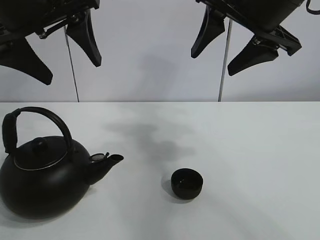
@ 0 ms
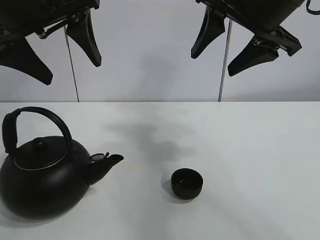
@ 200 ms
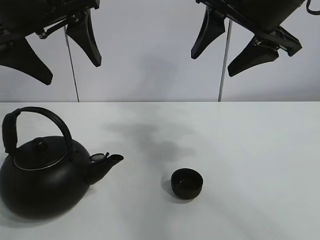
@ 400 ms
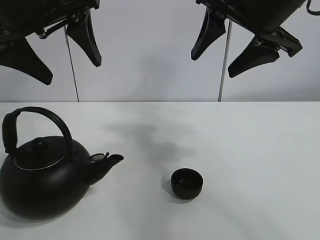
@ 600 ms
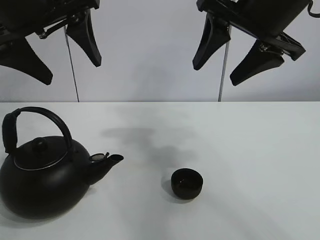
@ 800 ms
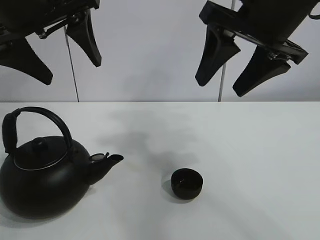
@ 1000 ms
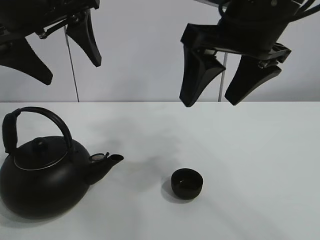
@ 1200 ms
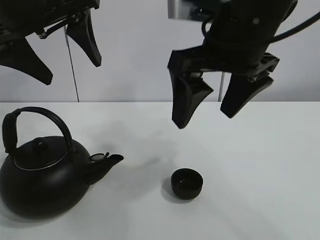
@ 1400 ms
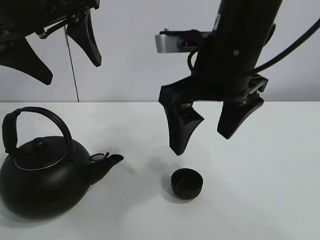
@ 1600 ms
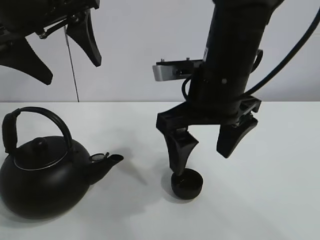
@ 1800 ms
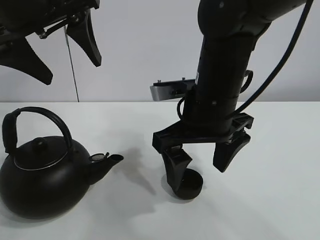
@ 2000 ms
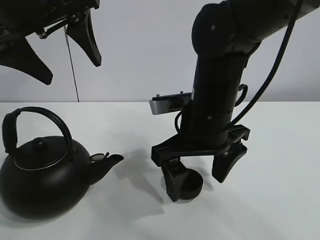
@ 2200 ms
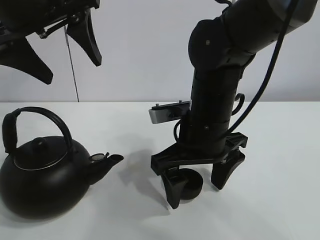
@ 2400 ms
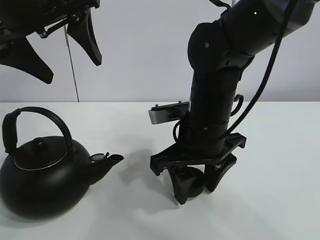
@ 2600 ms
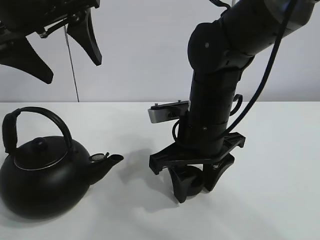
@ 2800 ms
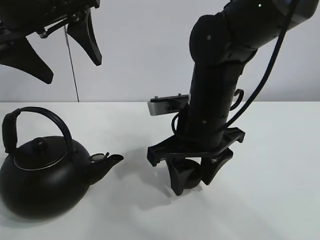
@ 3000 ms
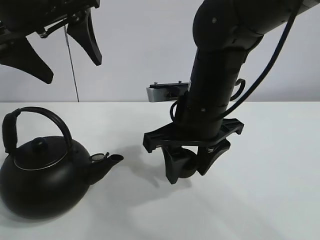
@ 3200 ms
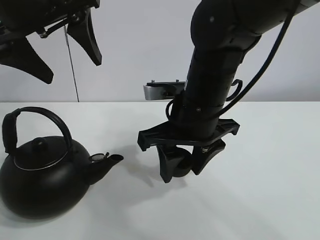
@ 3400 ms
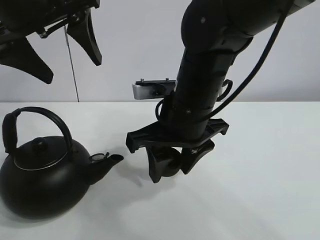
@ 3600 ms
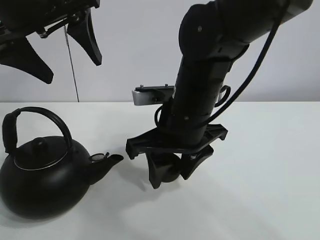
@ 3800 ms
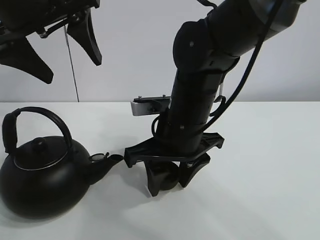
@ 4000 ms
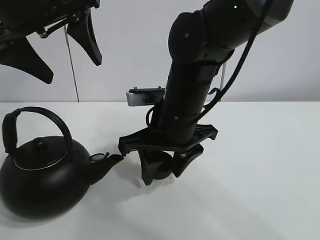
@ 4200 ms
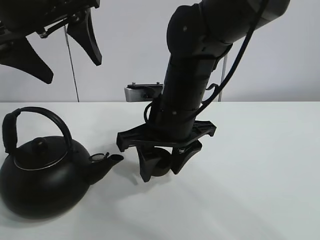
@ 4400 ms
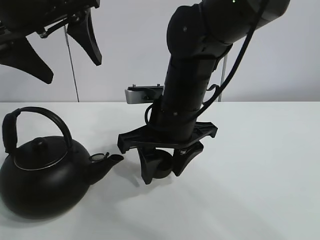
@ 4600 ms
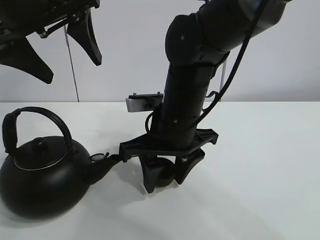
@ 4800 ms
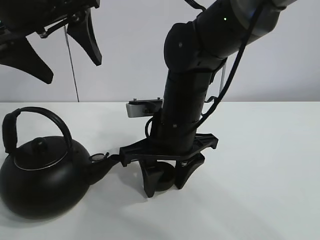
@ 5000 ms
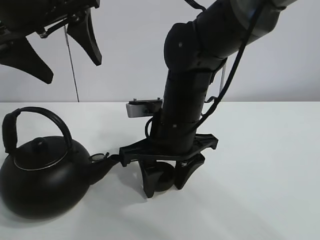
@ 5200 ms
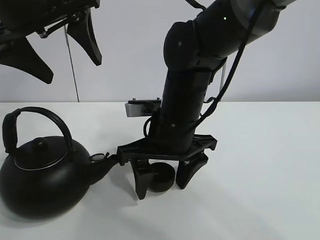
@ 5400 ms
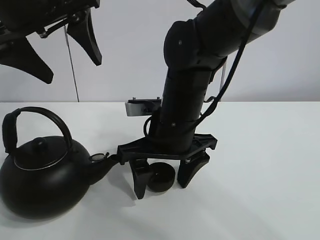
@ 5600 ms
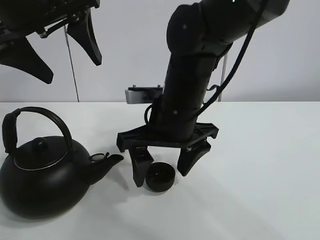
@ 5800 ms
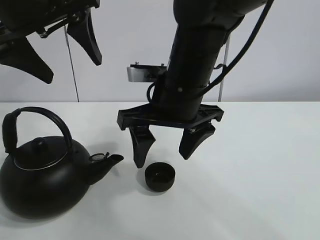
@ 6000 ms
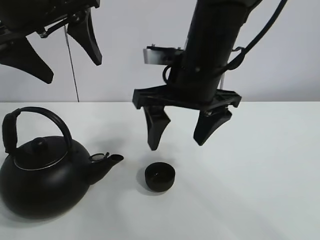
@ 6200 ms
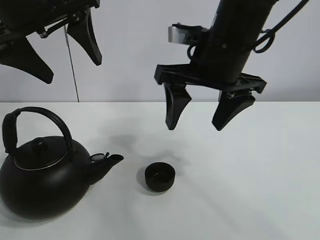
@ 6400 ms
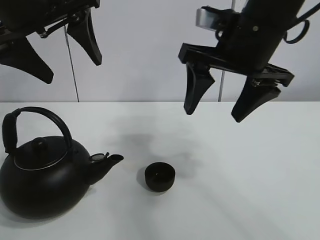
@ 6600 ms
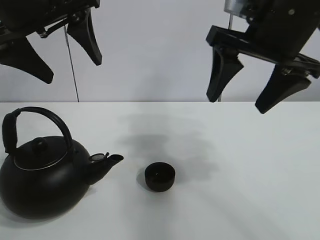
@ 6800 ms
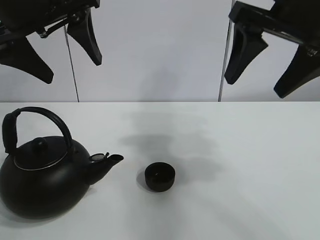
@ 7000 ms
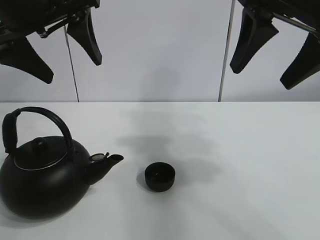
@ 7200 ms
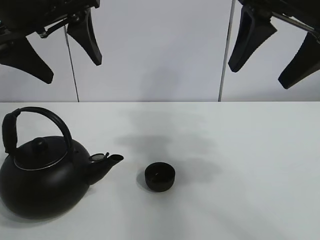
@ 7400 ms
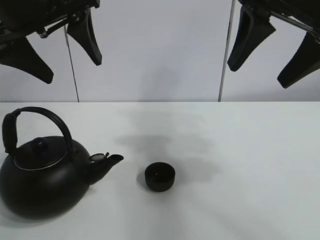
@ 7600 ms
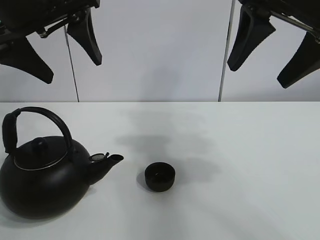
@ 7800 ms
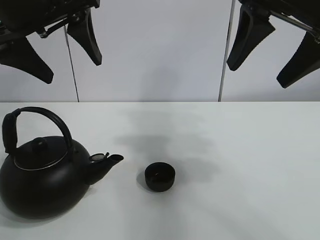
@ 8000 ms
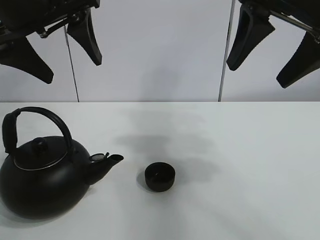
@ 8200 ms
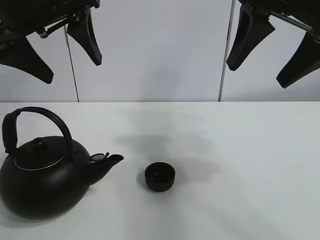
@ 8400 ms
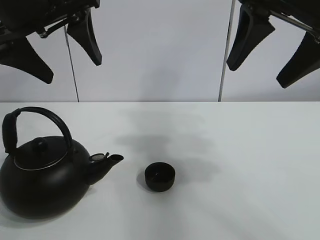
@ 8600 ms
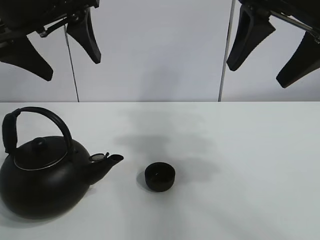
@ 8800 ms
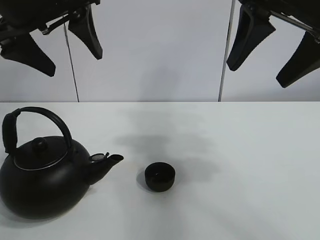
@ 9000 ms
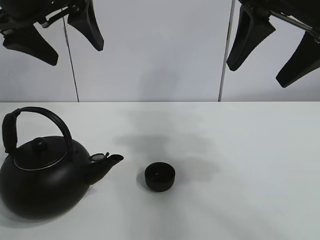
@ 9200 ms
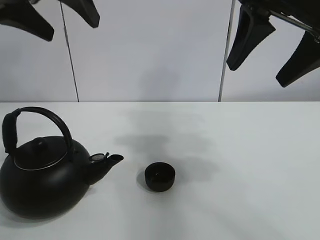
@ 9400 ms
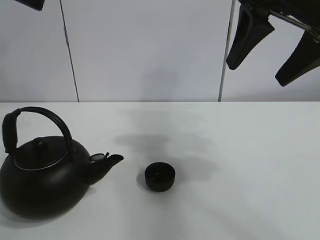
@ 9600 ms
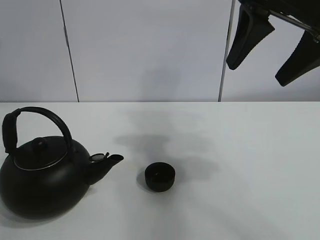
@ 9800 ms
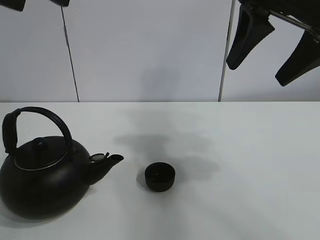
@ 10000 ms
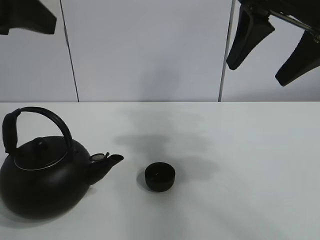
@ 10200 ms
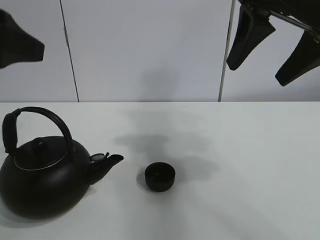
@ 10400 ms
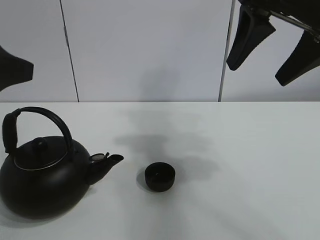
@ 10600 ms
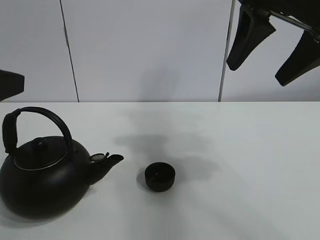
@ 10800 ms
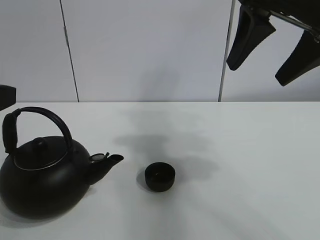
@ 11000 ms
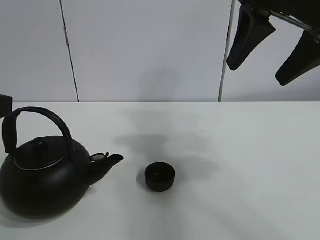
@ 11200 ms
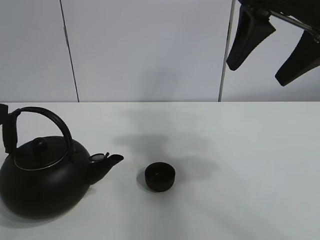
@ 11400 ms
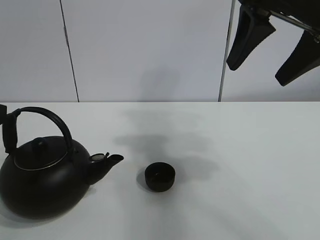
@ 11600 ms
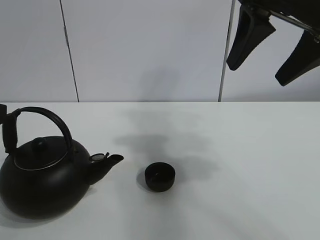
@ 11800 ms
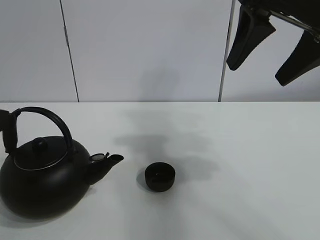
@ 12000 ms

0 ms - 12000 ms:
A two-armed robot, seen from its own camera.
Task of the whole recording: pour tea into the teacup.
Step, 0 ms - 2600 ms: Pick up the teacup with the right gripper.
Step, 2800 ms - 5600 ms: Place the teacup in the center of view with the right gripper.
1600 ms - 3000 ms: The right gripper heads downward, covering about 10 cm, and closes its fingers.
4400 ms - 6000 ms: The right gripper opens its fingers.
6000 ms - 7600 ms: The right gripper is displaced to the right and upward by approximately 20 cm.
7600 ms - 9000 ms: Both grippers stay put.
9000 ms - 10400 ms: The left gripper goes roughly 10 cm backward and to the left, and reaches about 10 cm upward, then returns.
10400 ms - 12000 ms: The left gripper is displaced downward and backward by approximately 10 cm.

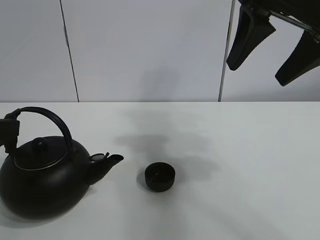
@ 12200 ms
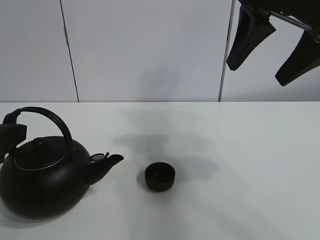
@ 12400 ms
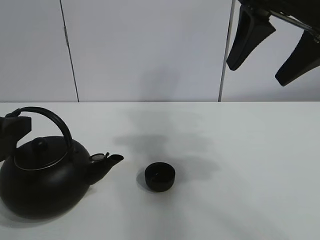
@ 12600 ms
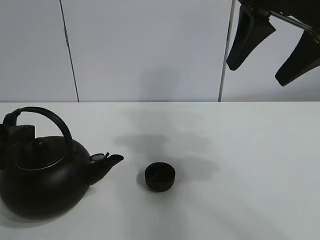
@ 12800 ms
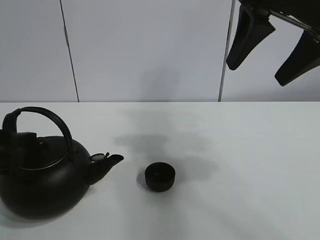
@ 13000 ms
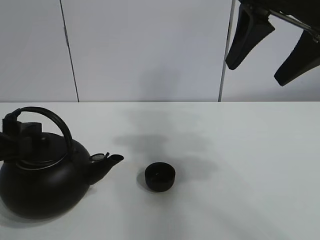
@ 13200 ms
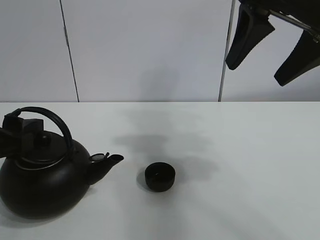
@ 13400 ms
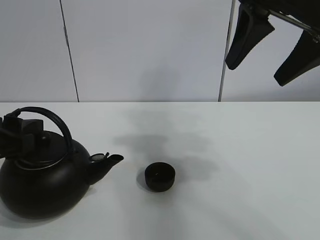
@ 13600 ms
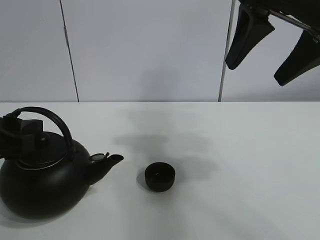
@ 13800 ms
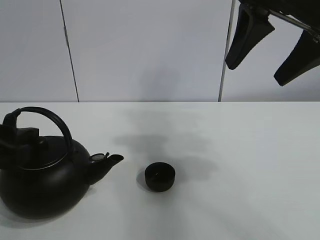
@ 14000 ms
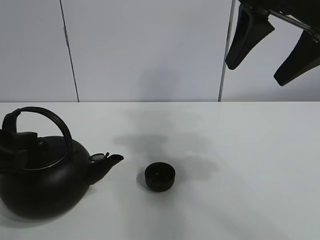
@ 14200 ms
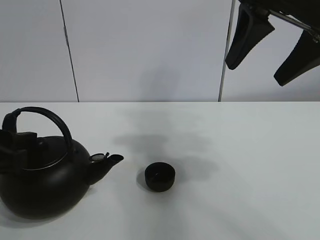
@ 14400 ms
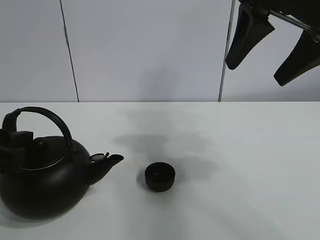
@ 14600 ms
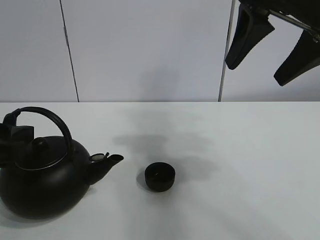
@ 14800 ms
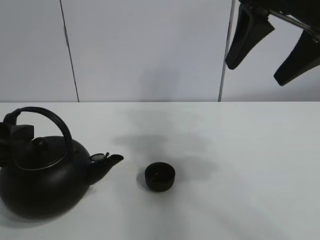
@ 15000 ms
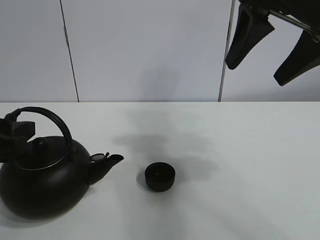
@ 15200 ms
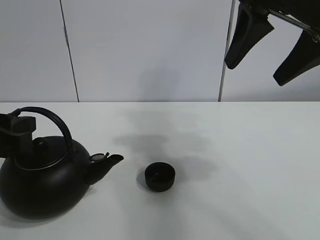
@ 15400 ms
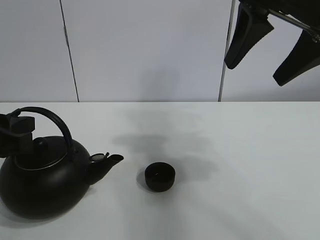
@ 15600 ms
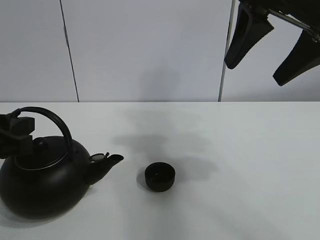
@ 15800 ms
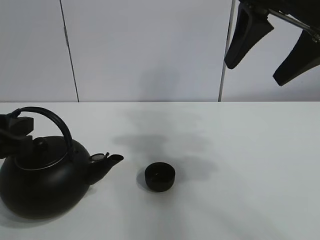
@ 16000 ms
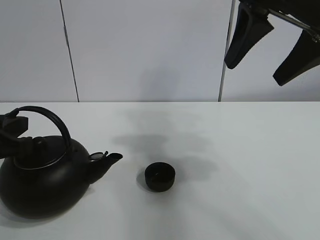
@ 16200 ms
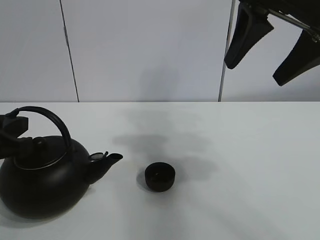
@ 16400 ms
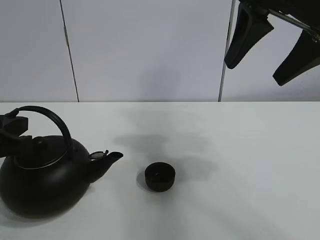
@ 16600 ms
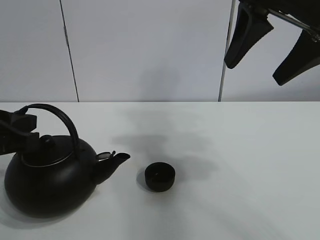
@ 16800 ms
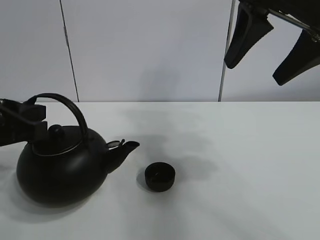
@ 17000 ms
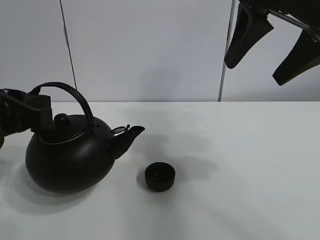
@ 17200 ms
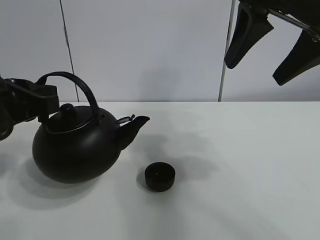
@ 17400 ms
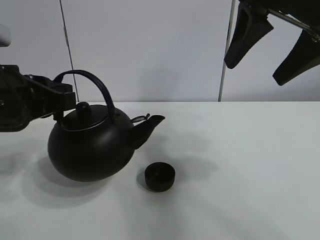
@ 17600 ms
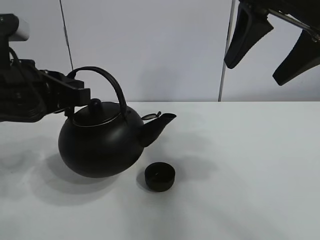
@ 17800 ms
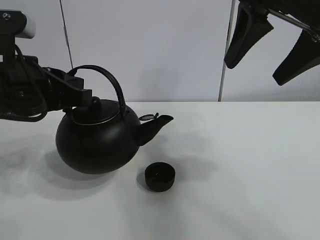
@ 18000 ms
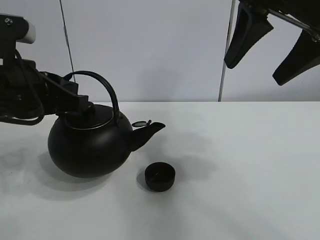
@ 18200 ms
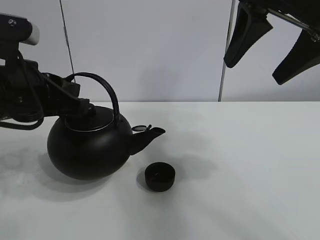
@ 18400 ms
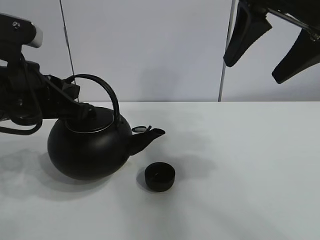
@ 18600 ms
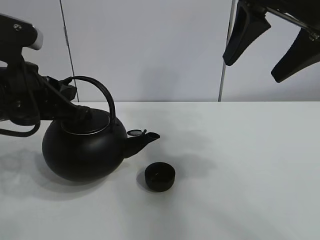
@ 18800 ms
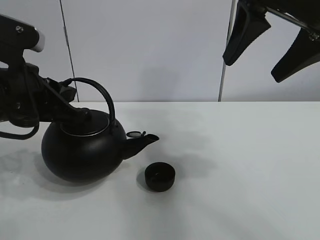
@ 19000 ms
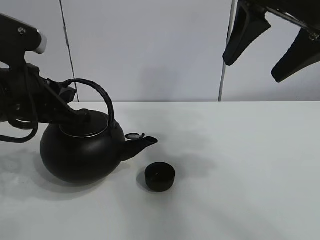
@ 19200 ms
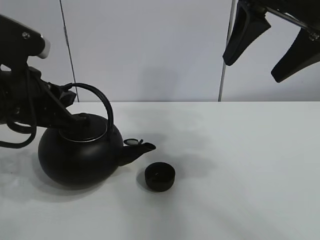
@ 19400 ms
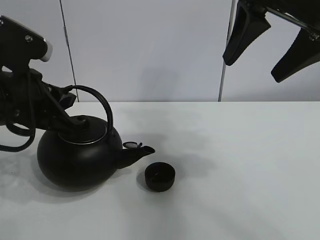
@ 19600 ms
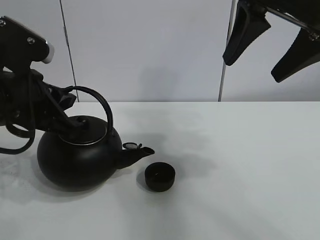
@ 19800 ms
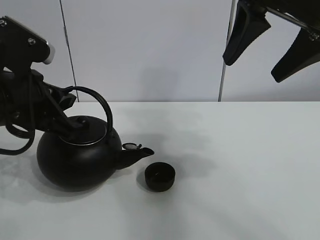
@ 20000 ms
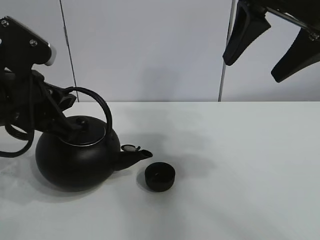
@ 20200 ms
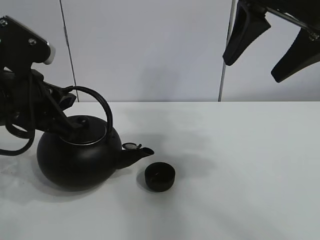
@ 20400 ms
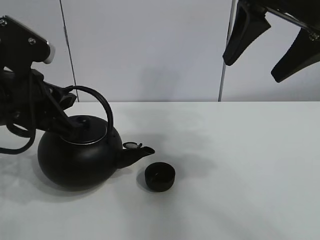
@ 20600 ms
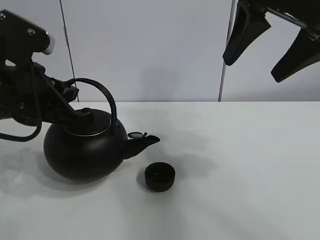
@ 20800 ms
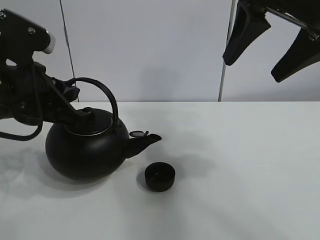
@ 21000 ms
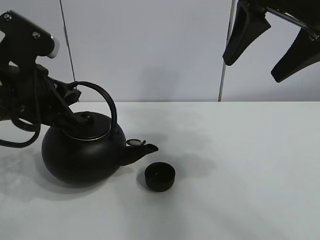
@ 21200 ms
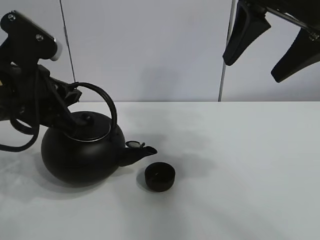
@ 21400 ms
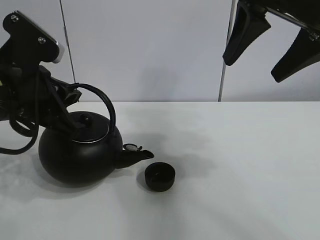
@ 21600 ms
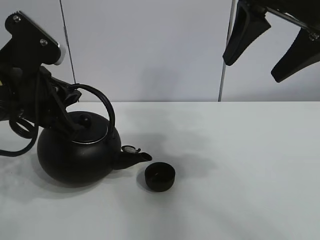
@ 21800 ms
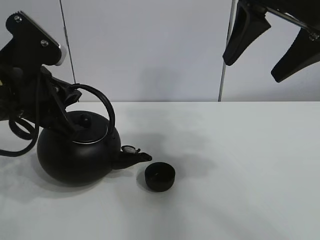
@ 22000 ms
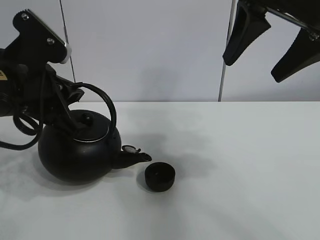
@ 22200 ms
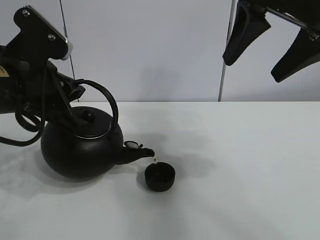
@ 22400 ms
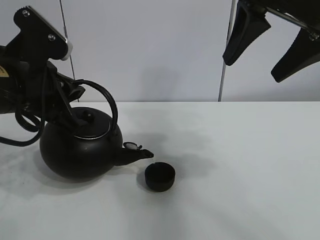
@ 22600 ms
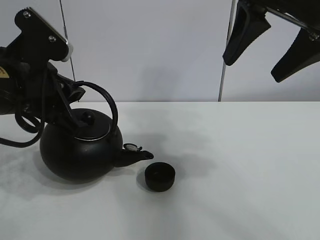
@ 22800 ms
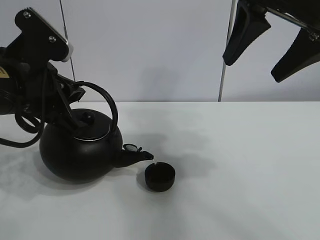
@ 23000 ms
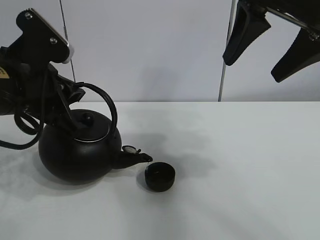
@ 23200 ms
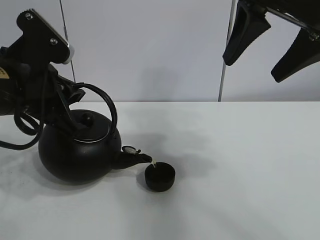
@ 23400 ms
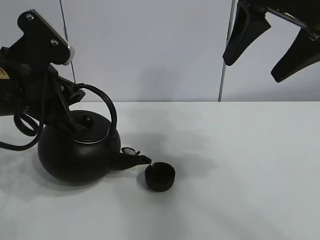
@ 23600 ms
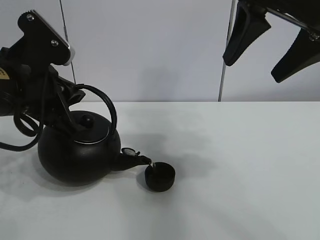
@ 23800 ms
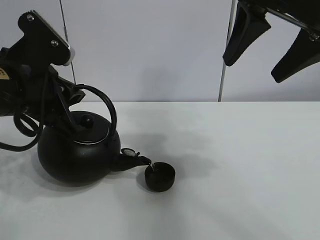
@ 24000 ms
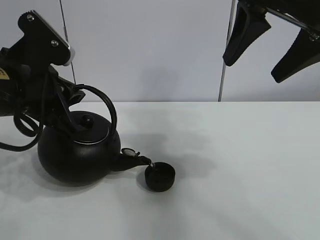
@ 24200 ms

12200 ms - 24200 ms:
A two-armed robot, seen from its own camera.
Task of the whole recording: pour tea into the teacup.
Step, 12200 ms - 16600 ms: Pick up the teapot with the left gripper.
12200 ms - 13800 ms: The left gripper shifts by roughly 5 cm.
13800 ms - 15200 ms: The two grippers keep their place.
15200 ms - 16600 ms: The left gripper closes.
16600 ms - 18200 ms: The left gripper heads to the right and forward, covering roughly 10 cm.
18200 ms - 19800 ms: The grippers stay close to where they were, moving slightly.
19800 ms - 21200 ms: Both grippers stay put.
21200 ms - 22600 ms: There are only small adjustments of the grippers.
22600 ms - 24200 ms: Both grippers stay put.
